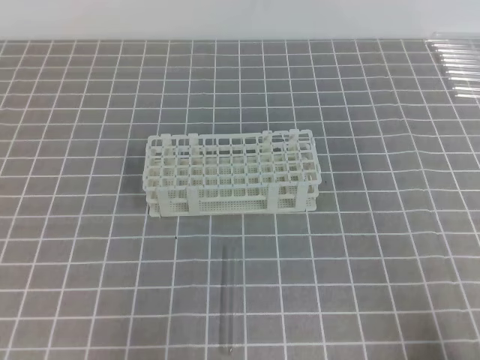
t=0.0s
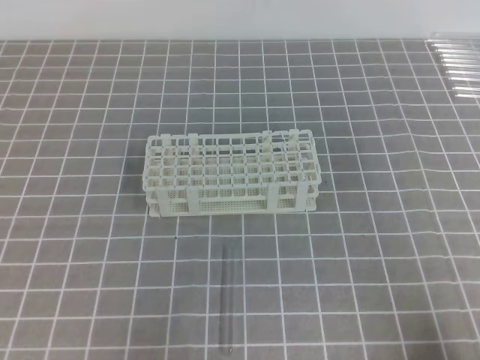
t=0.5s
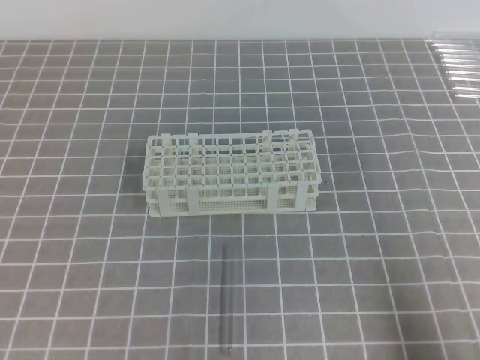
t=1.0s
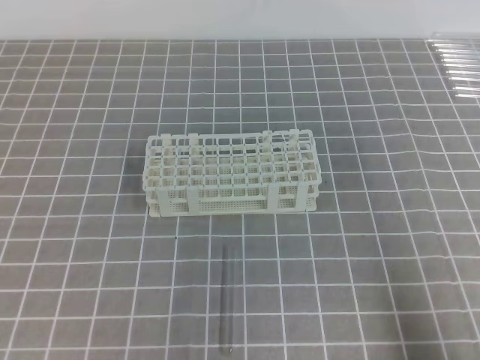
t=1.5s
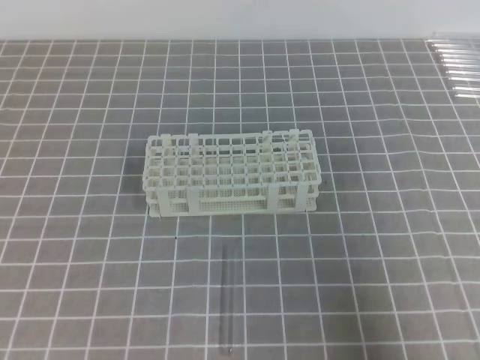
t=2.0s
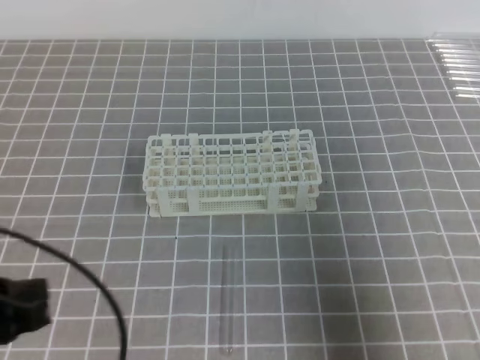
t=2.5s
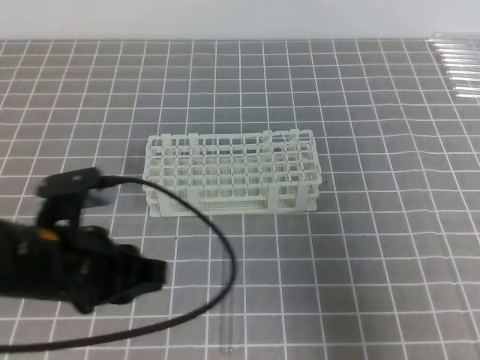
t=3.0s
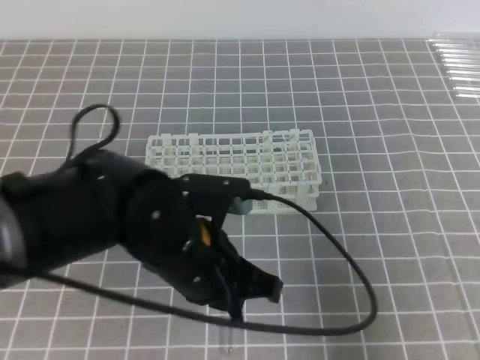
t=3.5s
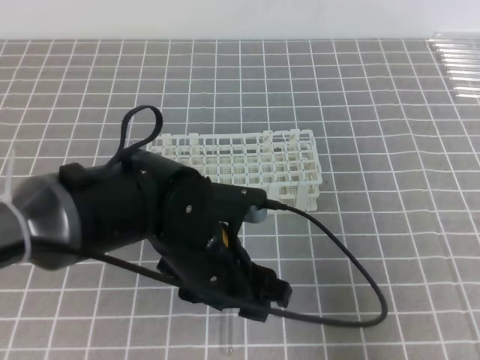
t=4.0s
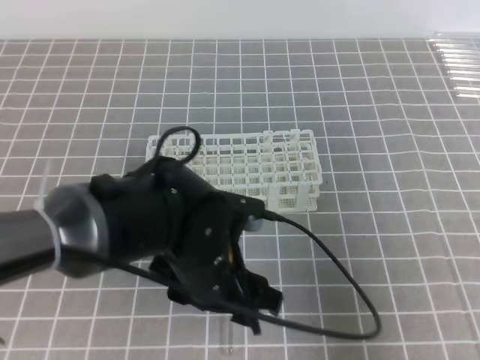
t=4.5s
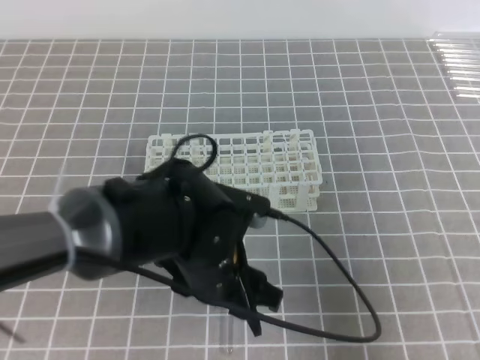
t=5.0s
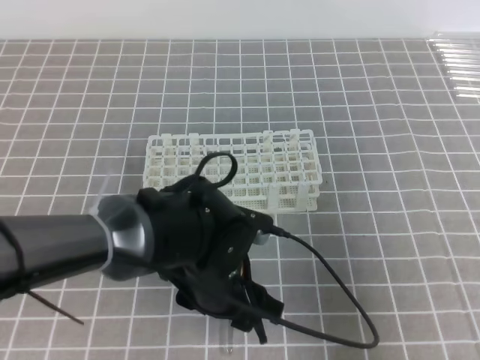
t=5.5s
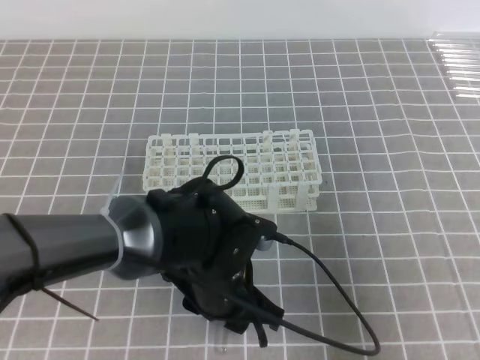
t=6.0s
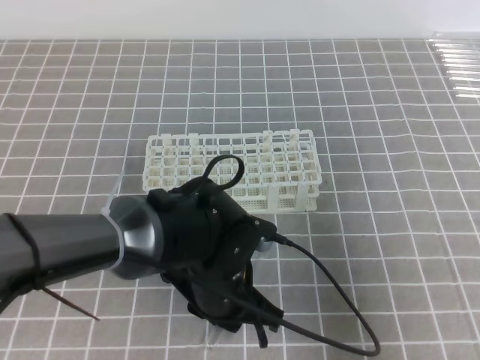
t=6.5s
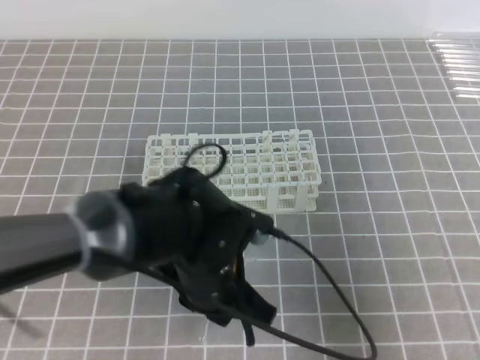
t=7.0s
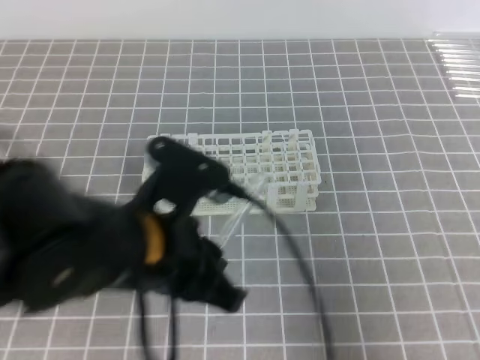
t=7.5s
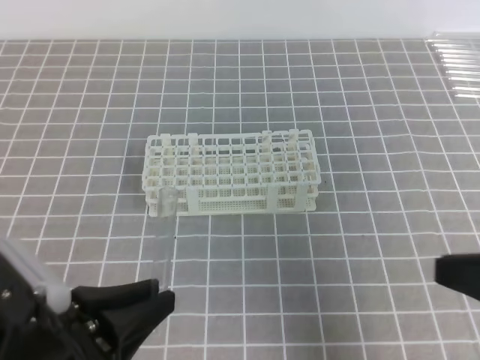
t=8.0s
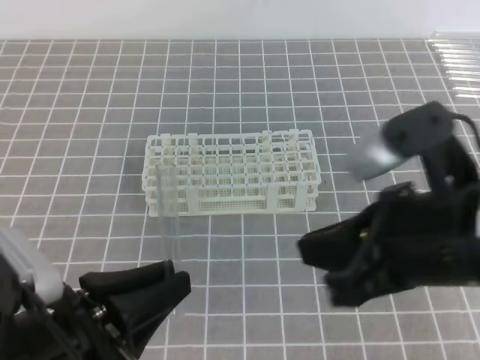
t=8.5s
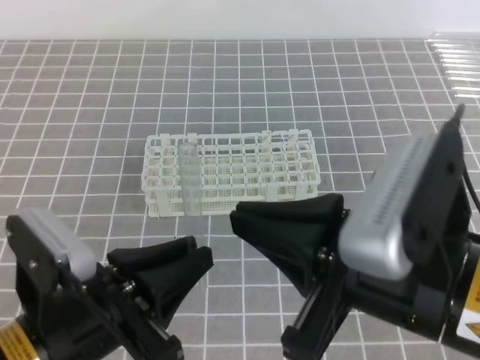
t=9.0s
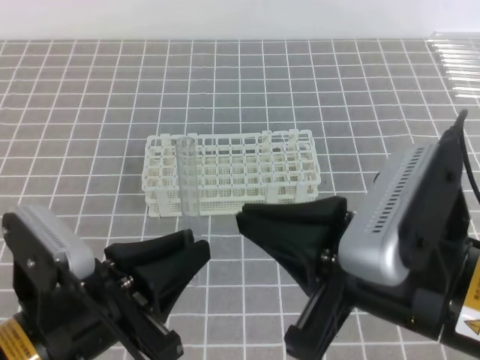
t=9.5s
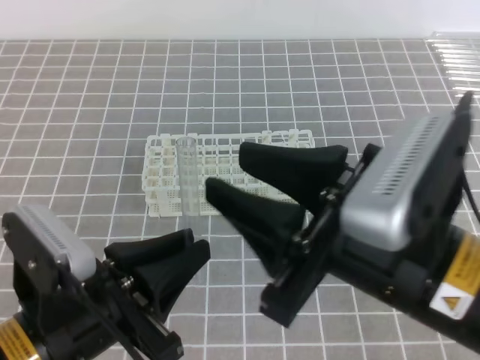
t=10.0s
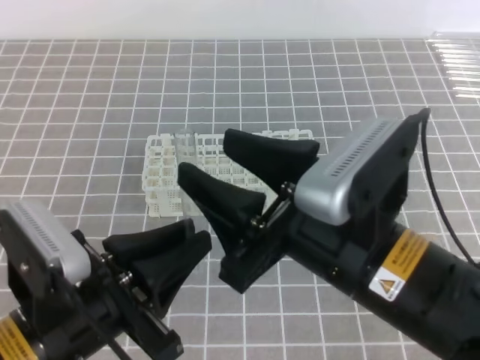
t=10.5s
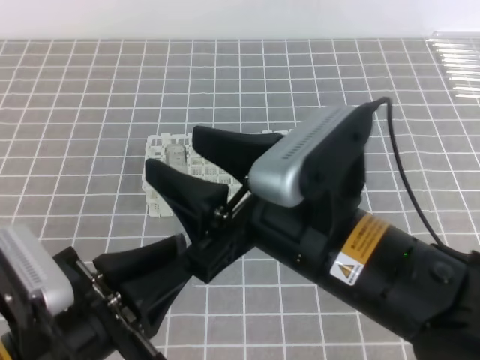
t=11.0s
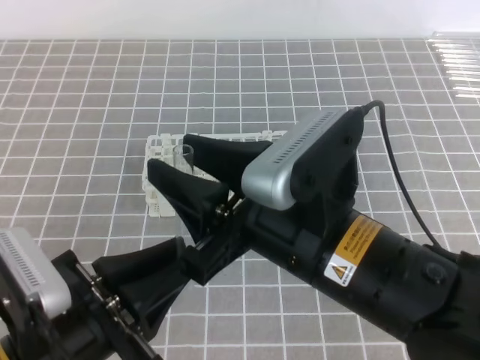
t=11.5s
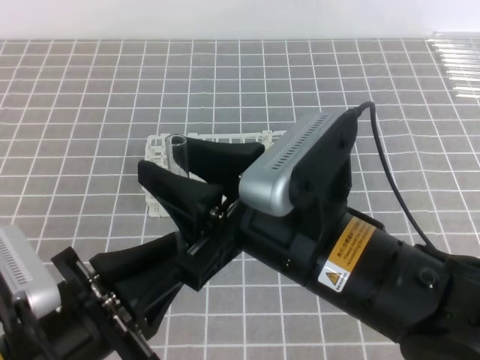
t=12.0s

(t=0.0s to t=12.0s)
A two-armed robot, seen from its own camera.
t=0.0s - t=2.0s: Both grippers move upward, about 10 cm.
t=2.0s - t=4.0s: The left gripper travels to the right and forward by approximately 30 cm, and opens.
t=4.0s - t=6.0s: The left gripper travels downward by about 5 cm.
t=6.0s - t=8.0s: The left gripper shifts approximately 20 cm to the left, backward and upward, and closes up.
t=8.0s - t=10.0s: The right gripper is displaced to the left by roughly 15 cm, and opens its fingers.
t=10.0s - t=12.0s: The right gripper is displaced to the left by approximately 5 cm.

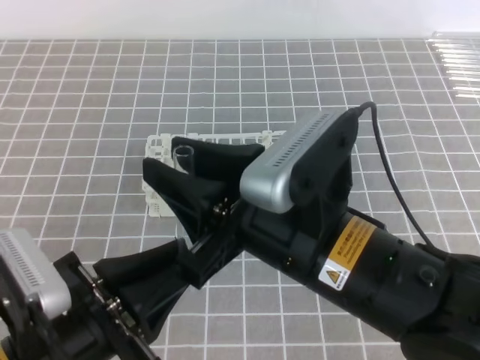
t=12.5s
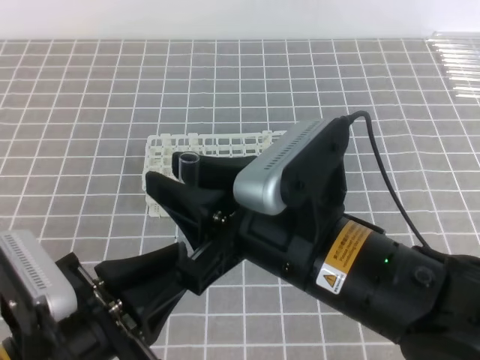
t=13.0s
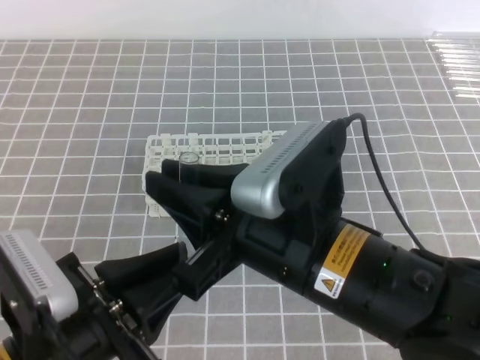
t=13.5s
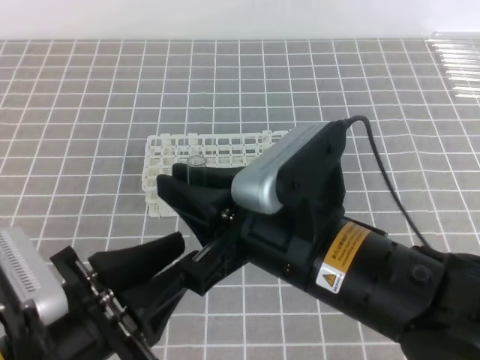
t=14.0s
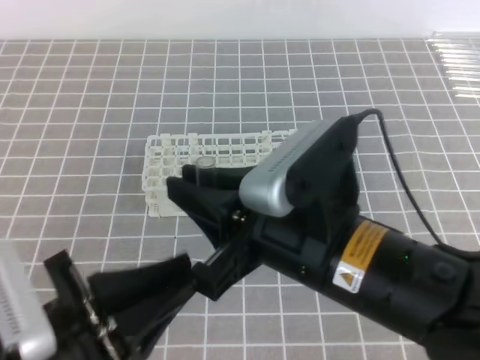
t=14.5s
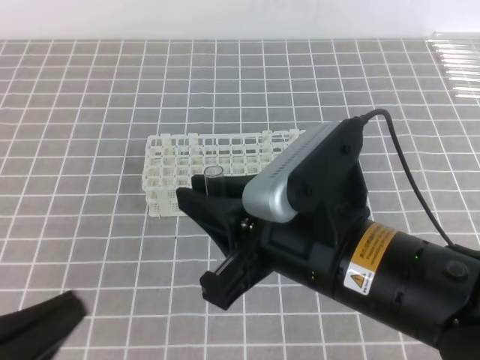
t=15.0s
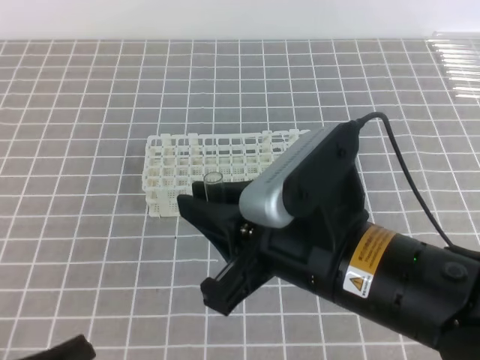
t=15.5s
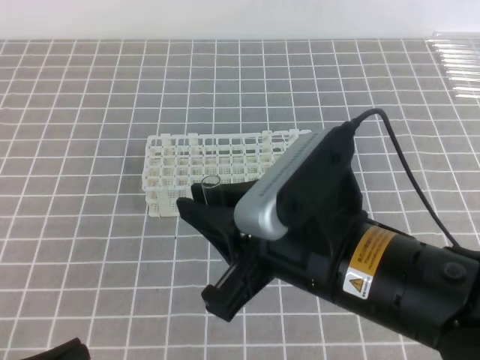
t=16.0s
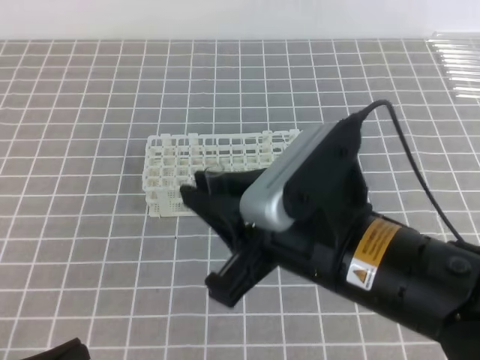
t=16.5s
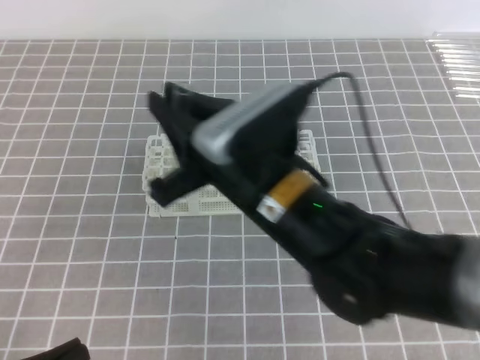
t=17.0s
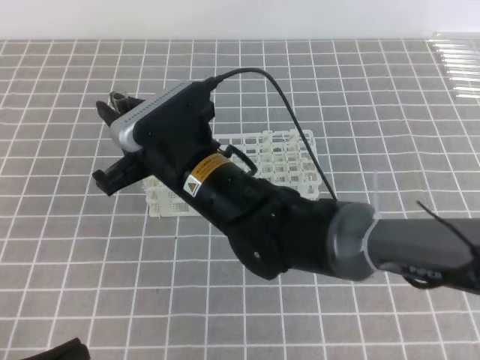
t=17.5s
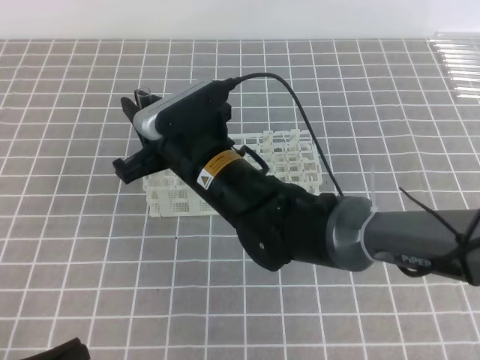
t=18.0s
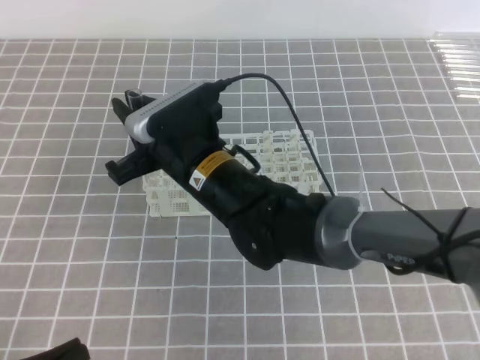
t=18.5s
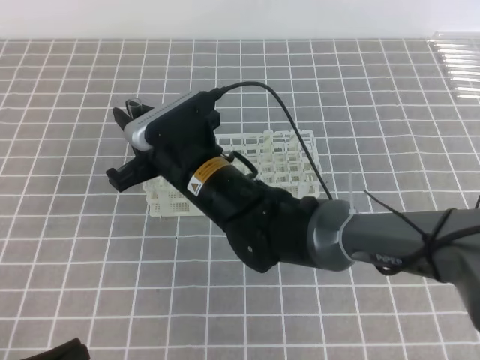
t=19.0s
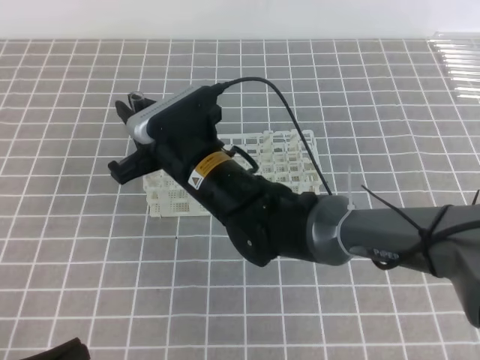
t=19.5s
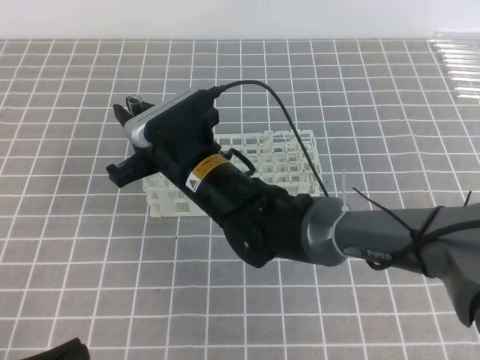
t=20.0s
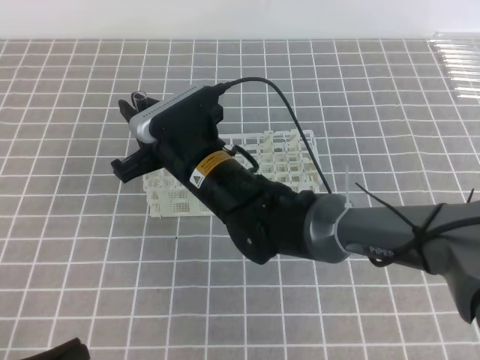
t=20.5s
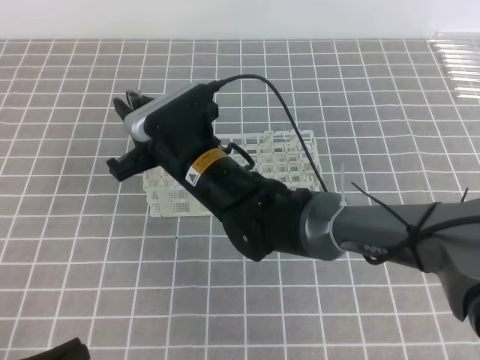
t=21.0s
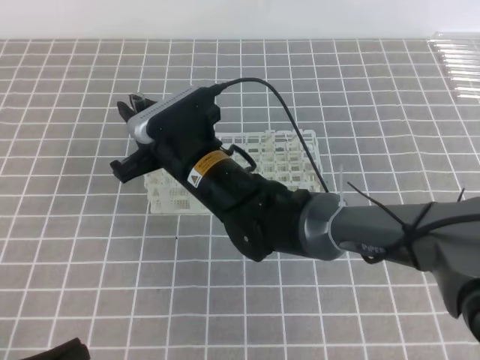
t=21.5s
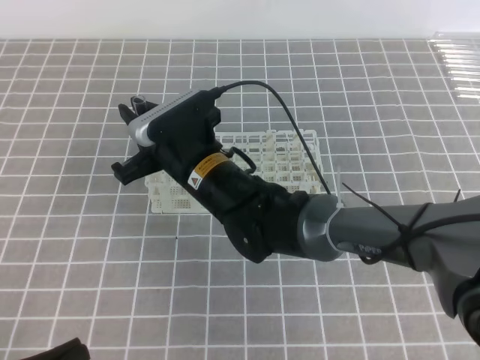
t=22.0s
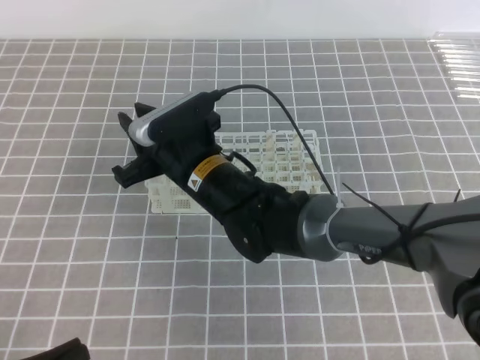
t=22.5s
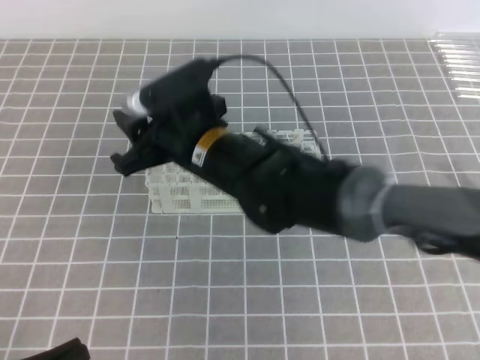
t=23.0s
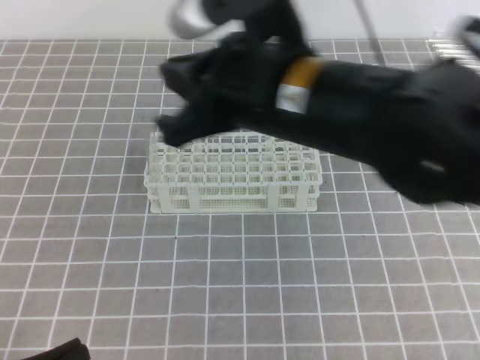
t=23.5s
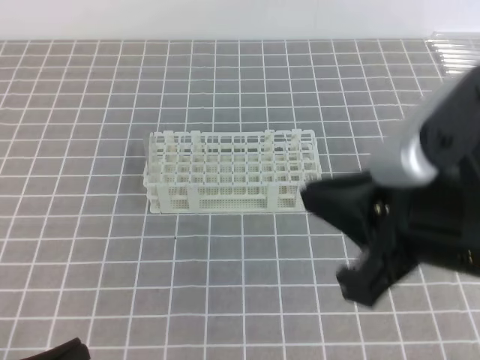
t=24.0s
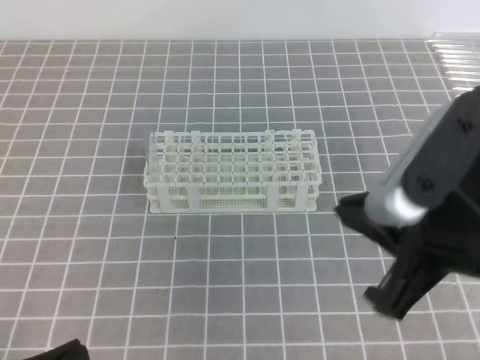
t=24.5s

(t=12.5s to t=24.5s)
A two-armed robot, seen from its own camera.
t=12.5s - t=14.5s: The right gripper closes.
t=14.5s - t=16.5s: The left gripper shifts about 10 cm to the left and downward.
t=16.5s - t=18.5s: The right gripper shifts some 20 cm forward, to the left and downward.
t=18.5s - t=22.5s: The grippers make only small movements.
t=22.5s - t=24.5s: The right gripper goes roughly 30 cm to the right, backward and upward, and closes up.

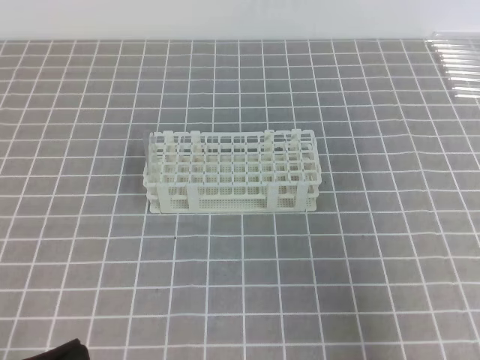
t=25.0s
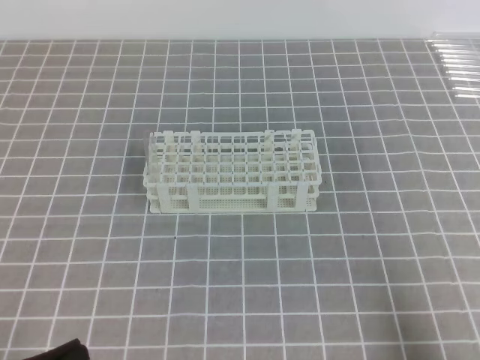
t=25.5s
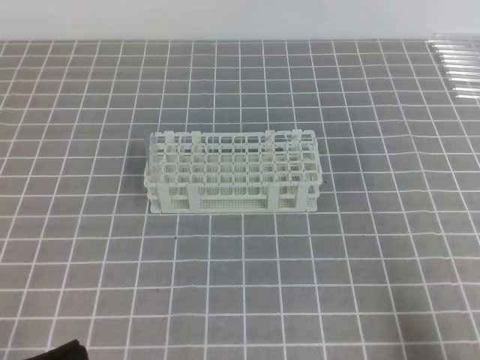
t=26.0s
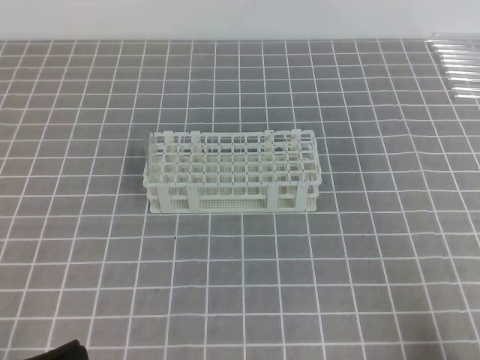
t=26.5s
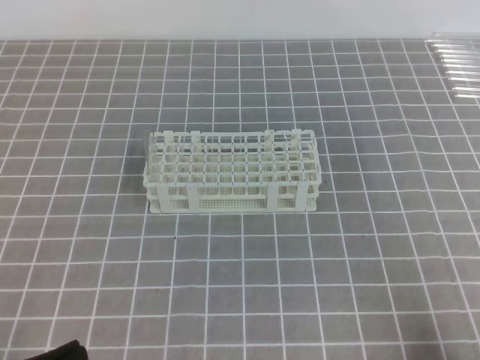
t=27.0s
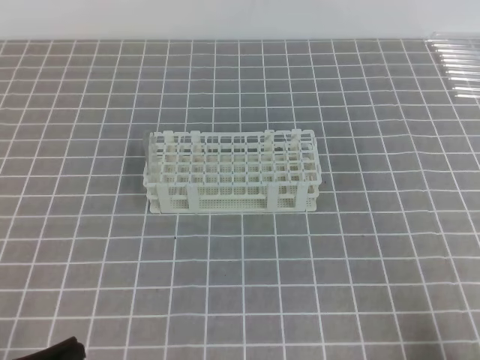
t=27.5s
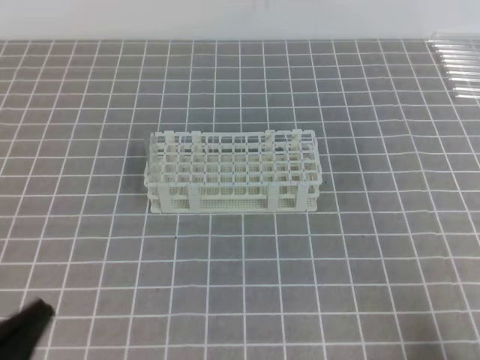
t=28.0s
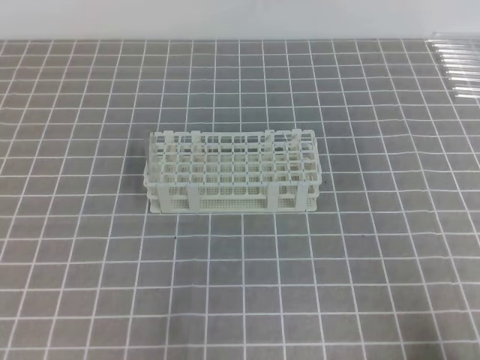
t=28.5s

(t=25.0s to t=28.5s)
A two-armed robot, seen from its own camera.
t=25.0s - t=27.0s: The right gripper heads downward and backward, covering roughly 15 cm.
